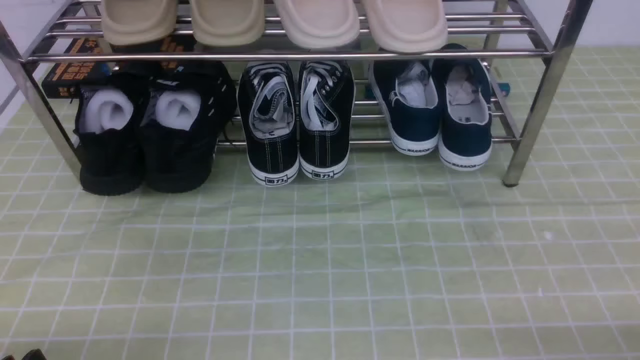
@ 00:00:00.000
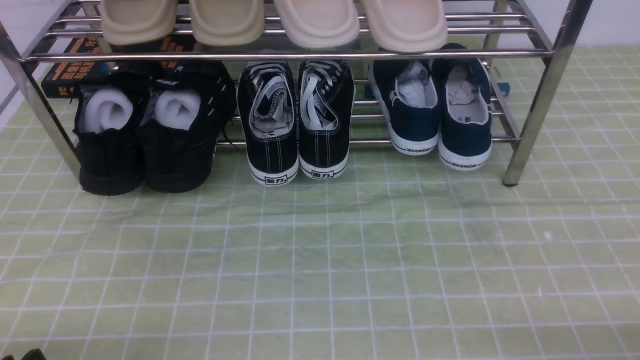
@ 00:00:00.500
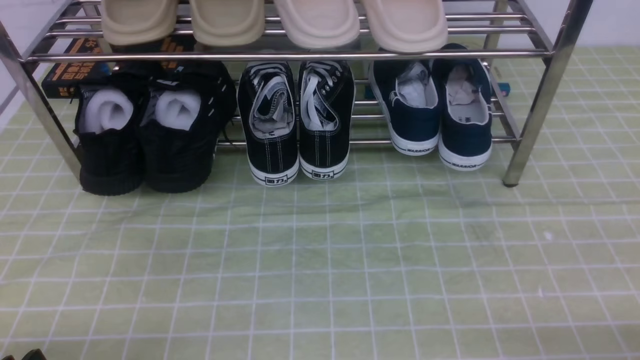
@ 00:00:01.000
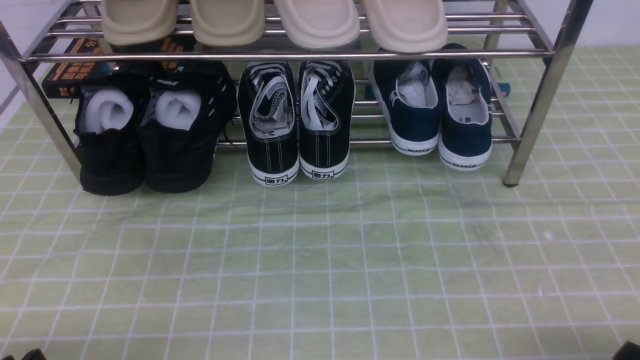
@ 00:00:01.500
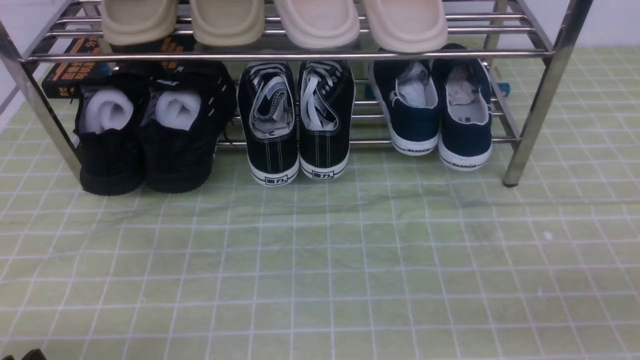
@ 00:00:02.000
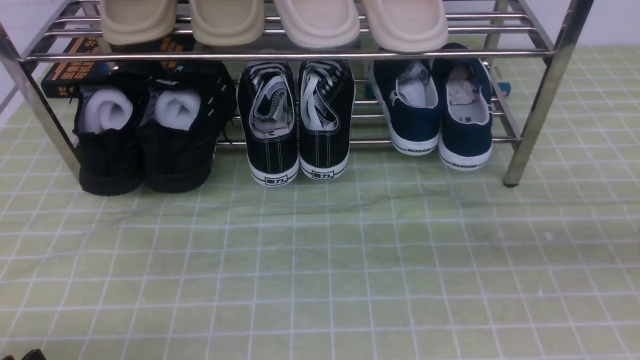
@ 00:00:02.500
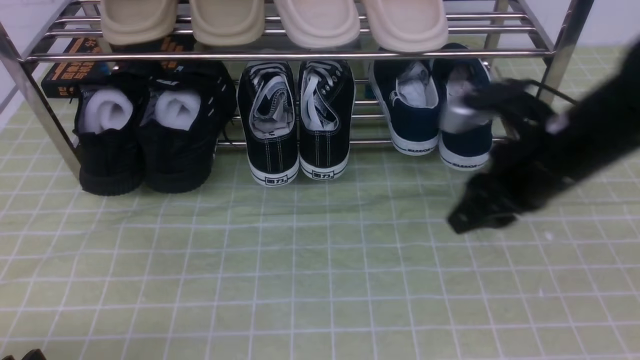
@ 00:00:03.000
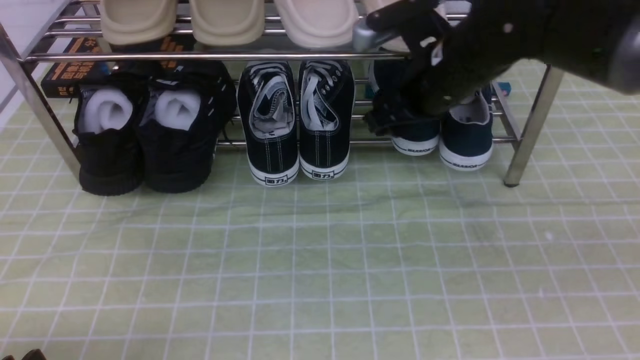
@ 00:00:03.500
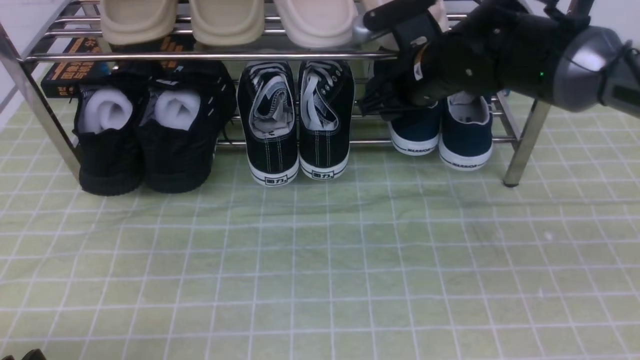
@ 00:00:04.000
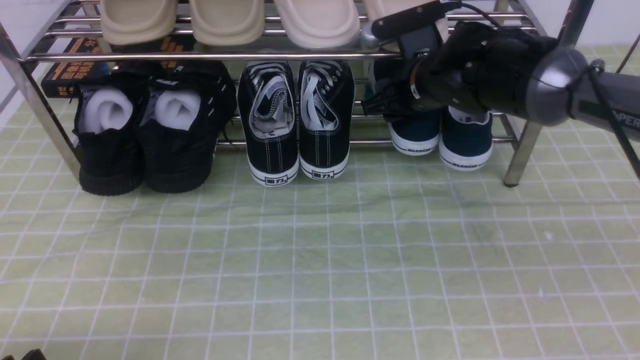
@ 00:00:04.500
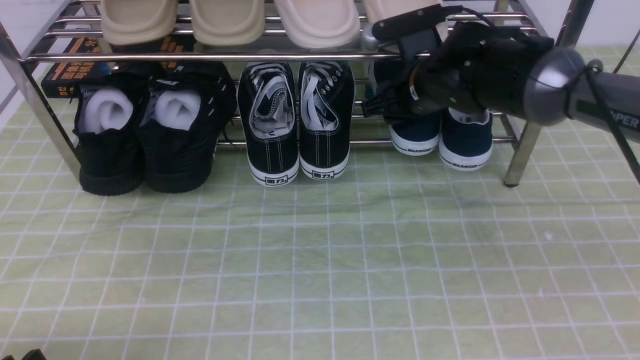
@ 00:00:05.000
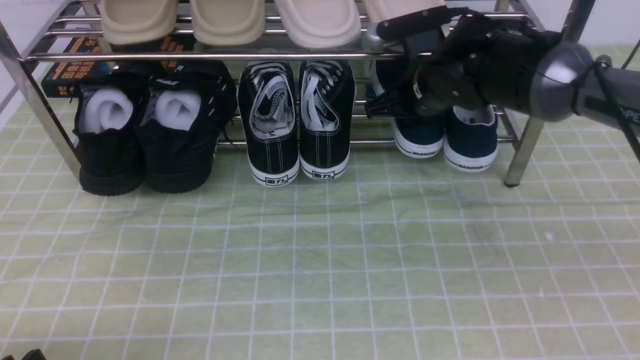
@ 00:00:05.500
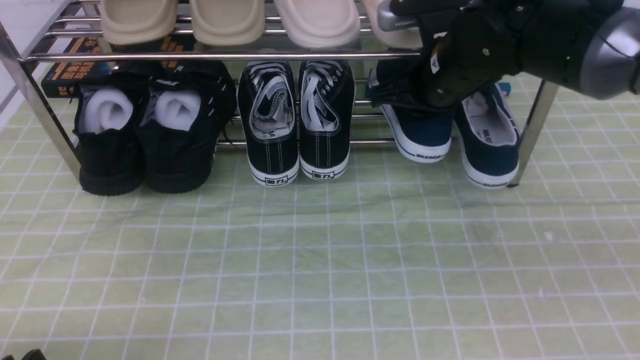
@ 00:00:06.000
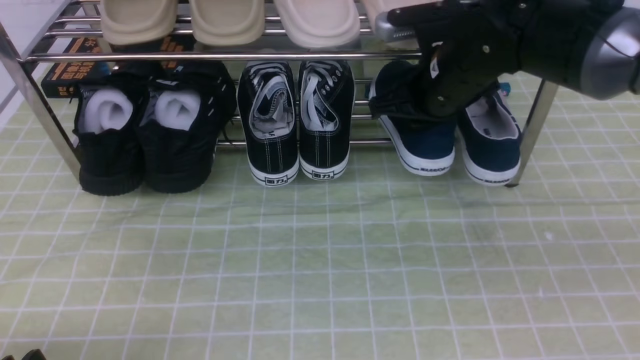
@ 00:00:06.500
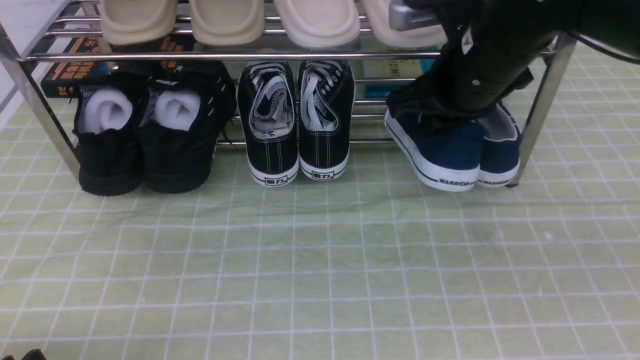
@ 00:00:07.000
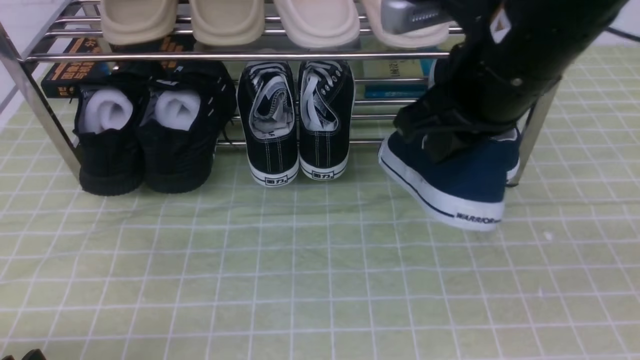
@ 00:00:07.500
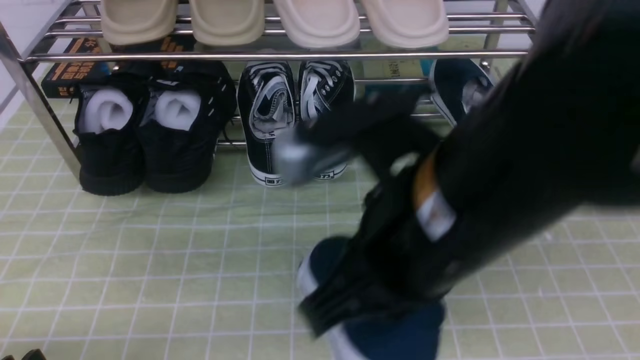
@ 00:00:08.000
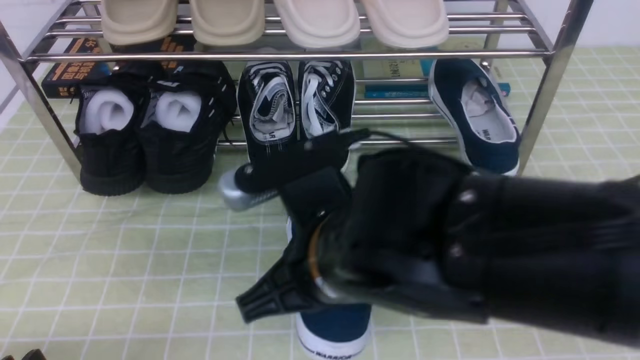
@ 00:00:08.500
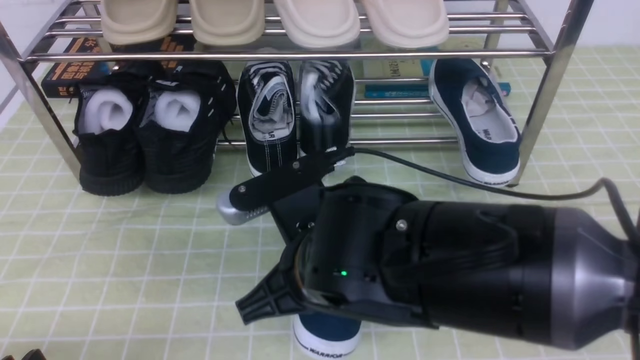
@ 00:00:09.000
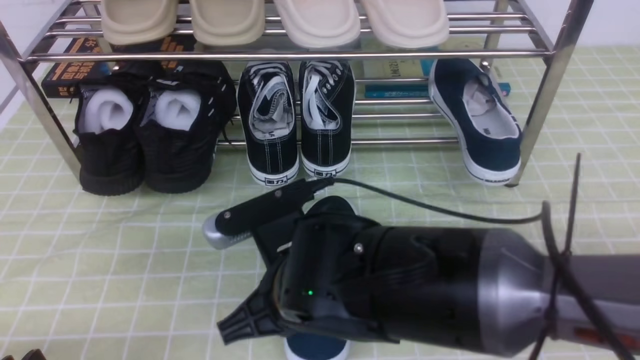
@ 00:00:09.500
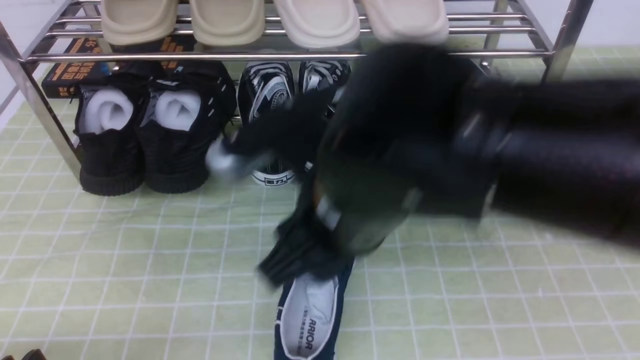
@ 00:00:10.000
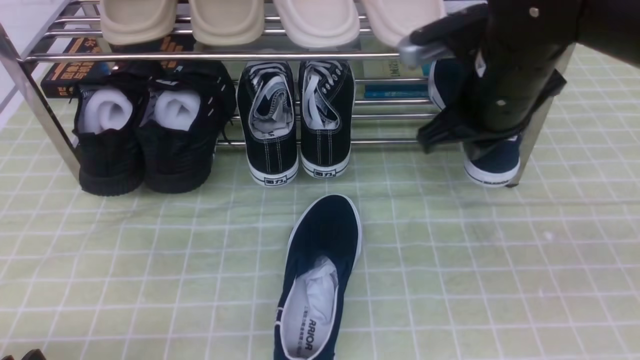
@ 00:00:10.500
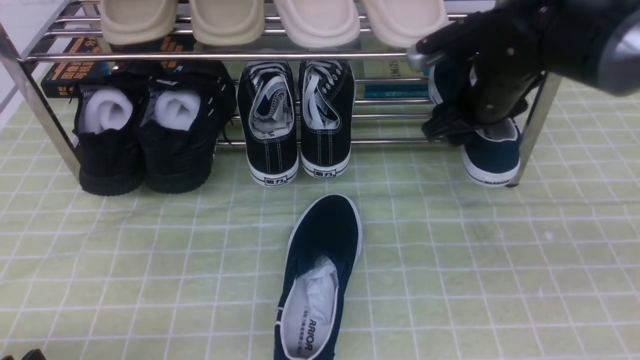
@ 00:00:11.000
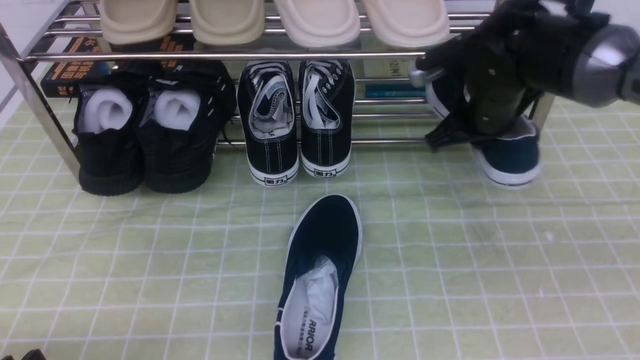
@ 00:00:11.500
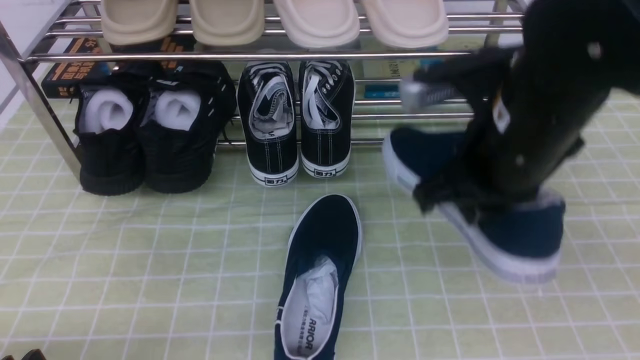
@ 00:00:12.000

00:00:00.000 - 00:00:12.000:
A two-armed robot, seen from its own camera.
Step, 00:00:00.000 - 00:00:05.500: use the right arm to clamp a shoe on the right side of the shoe rack.
Step, 00:00:06.000 - 00:00:09.500: use the right arm to take out the clamped shoe from the shoe rack and put it down.
Step, 00:00:10.000 - 00:00:11.000: use the right arm to clamp a shoe on the right side of the shoe rack.
00:00:02.000 - 00:00:04.000: The right gripper goes roughly 40 cm forward and to the left, and opens up.
00:00:04.000 - 00:00:06.000: The right gripper closes its fingers.
00:00:06.000 - 00:00:08.000: The right gripper goes approximately 25 cm backward and upward.
00:00:08.000 - 00:00:10.000: The right gripper shifts about 10 cm downward and to the left, and opens its fingers.
00:00:10.000 - 00:00:12.000: The right gripper moves to the right and forward, about 15 cm, and closes.

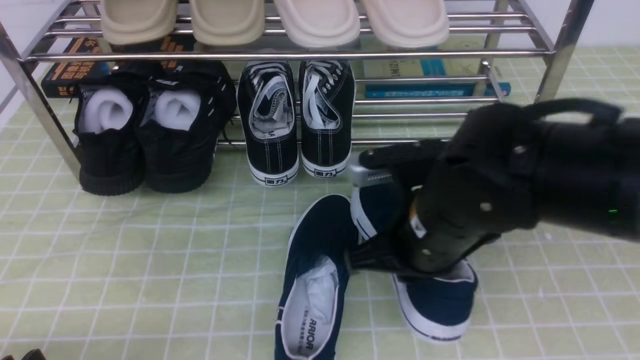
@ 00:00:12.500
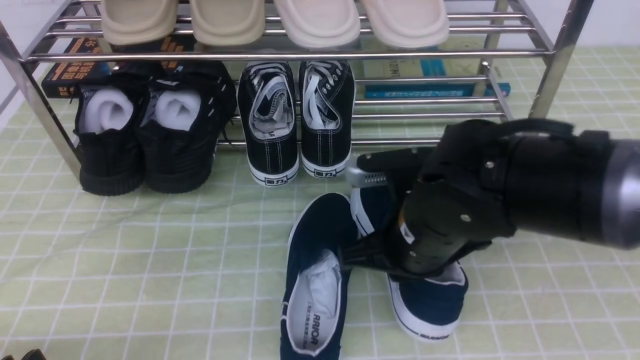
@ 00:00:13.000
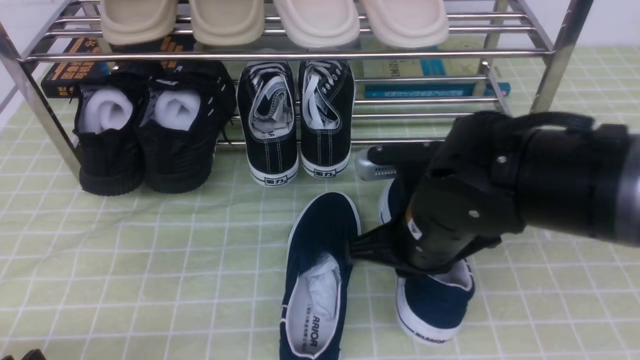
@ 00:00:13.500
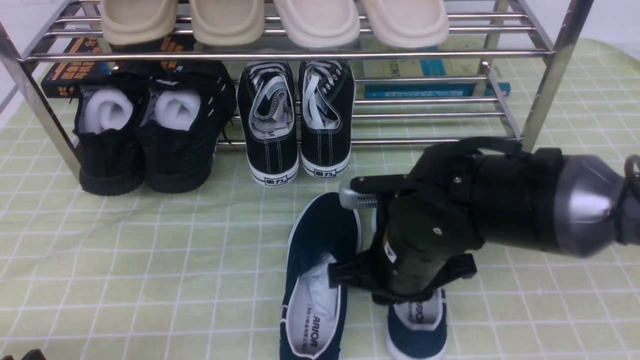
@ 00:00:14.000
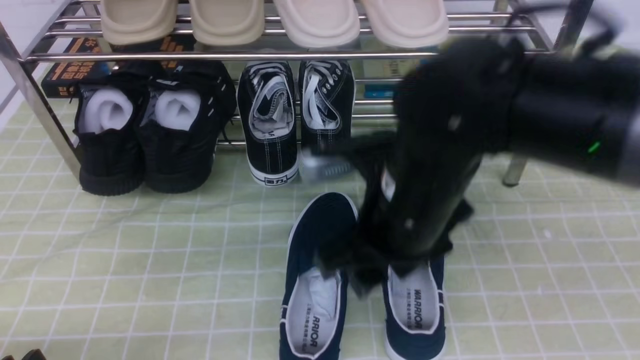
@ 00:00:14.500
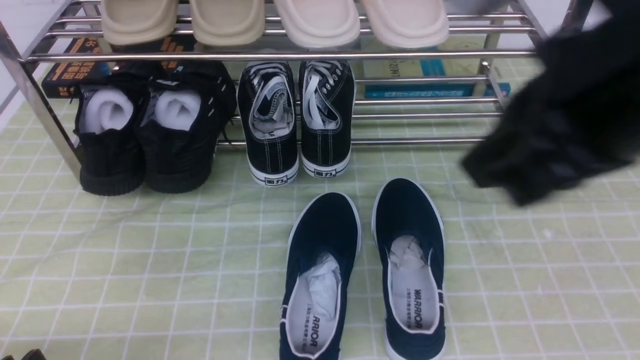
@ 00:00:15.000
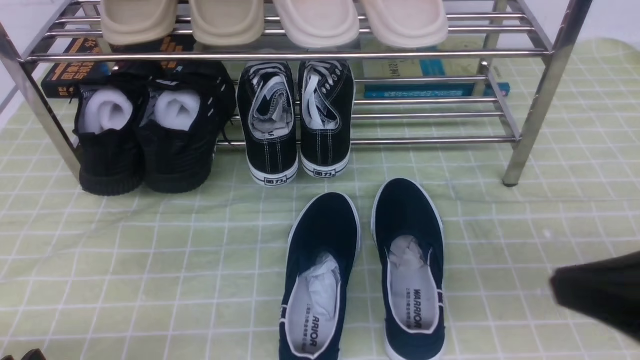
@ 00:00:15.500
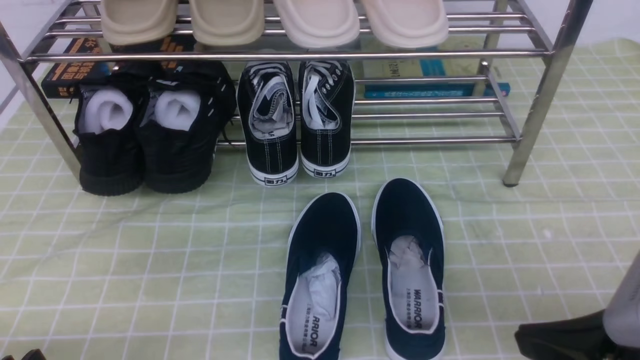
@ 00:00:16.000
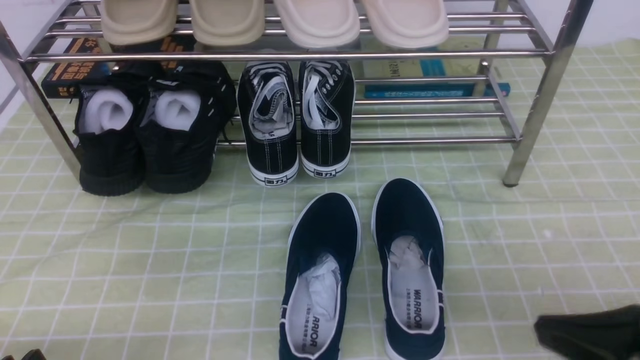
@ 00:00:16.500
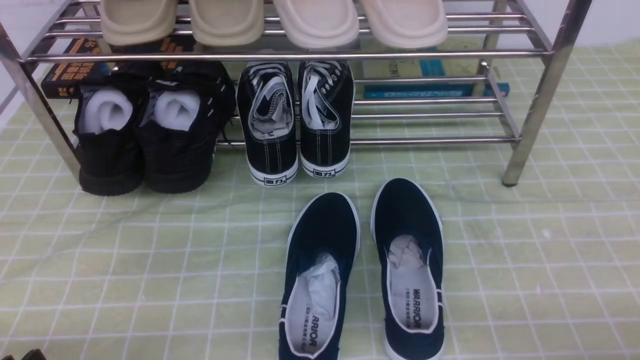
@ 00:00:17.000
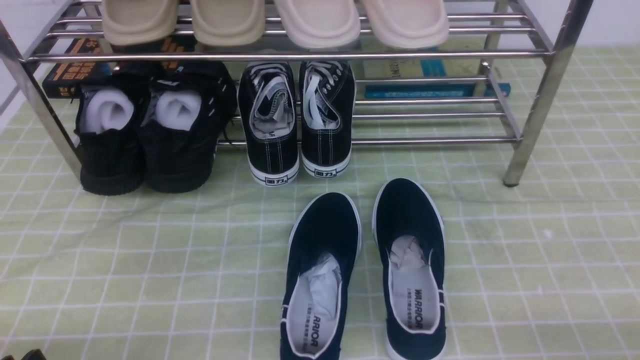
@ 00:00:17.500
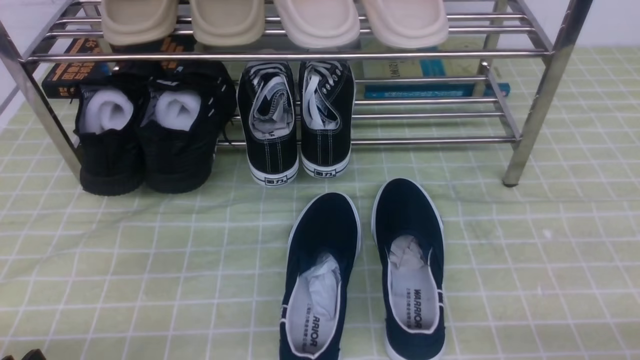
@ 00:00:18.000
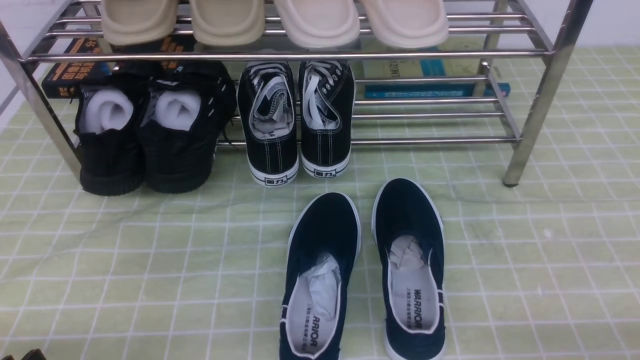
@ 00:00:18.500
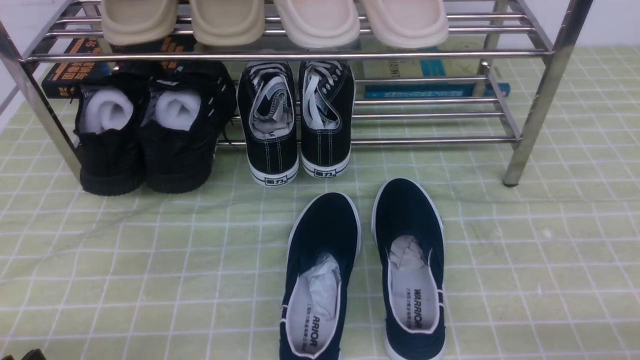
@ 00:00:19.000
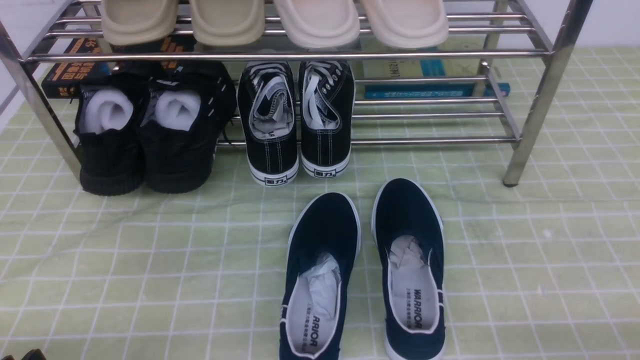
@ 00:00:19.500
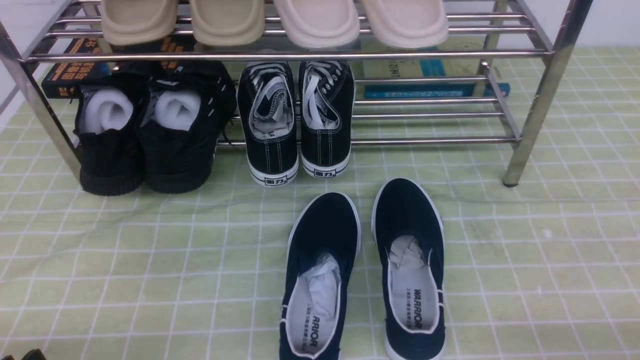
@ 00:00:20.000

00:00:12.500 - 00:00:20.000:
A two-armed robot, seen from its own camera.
Step, 00:00:12.500 - 00:00:14.500: use the right arm to take out the clamped shoe from the shoe rack and put it down.
00:00:12.500 - 00:00:14.500: The right gripper opens.
00:00:14.500 - 00:00:16.500: The right gripper shifts about 25 cm to the right and backward, and closes up.
00:00:16.500 - 00:00:18.000: The right gripper moves downward and to the right, some 15 cm.
00:00:18.000 - 00:00:20.000: Both grippers stay put.
